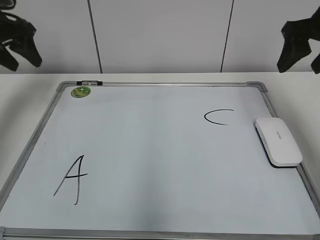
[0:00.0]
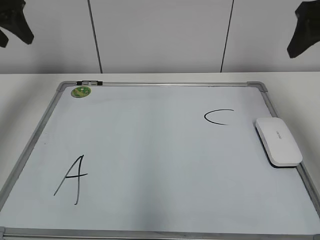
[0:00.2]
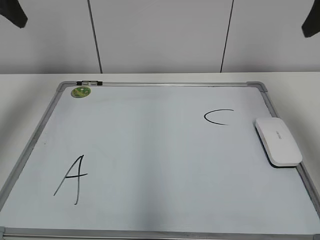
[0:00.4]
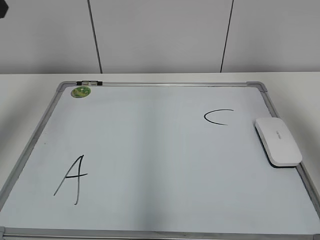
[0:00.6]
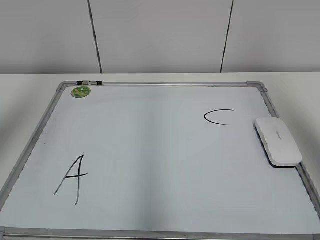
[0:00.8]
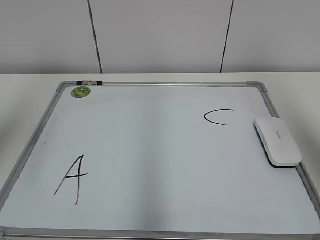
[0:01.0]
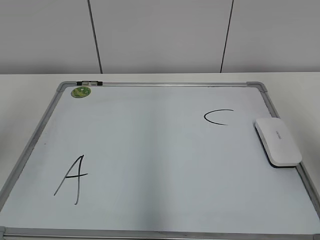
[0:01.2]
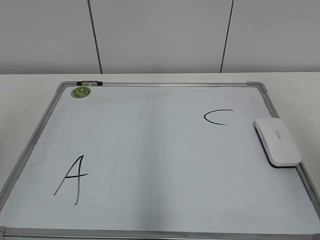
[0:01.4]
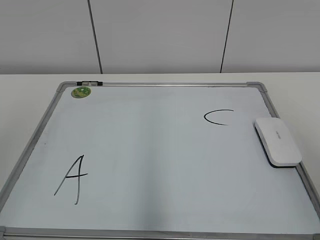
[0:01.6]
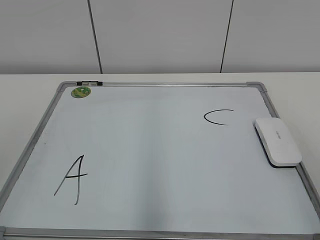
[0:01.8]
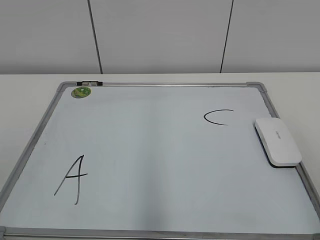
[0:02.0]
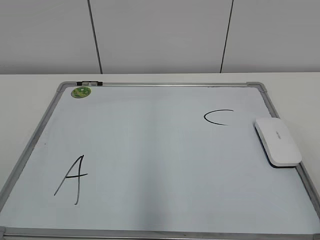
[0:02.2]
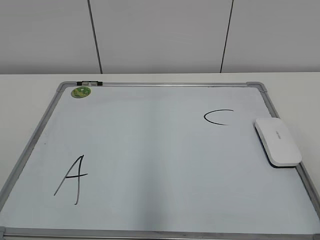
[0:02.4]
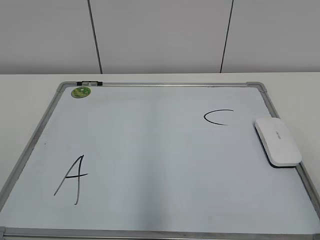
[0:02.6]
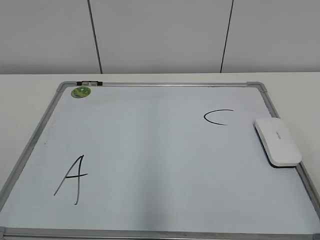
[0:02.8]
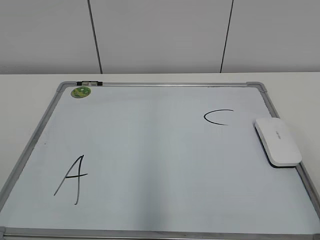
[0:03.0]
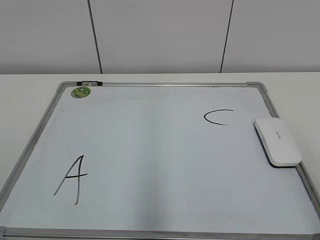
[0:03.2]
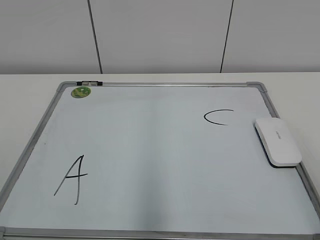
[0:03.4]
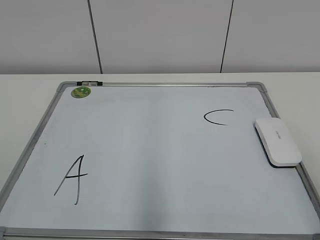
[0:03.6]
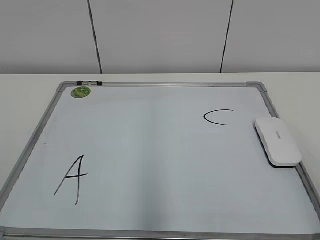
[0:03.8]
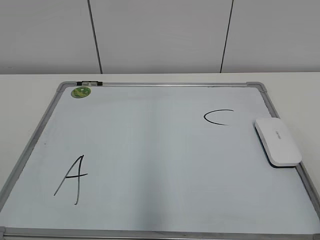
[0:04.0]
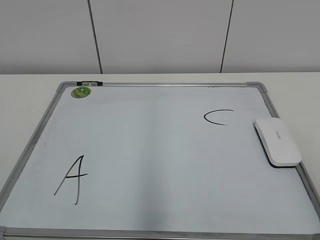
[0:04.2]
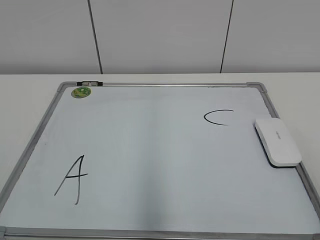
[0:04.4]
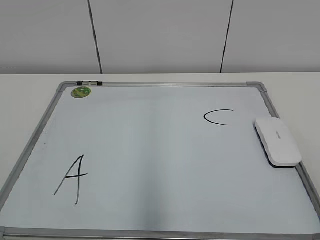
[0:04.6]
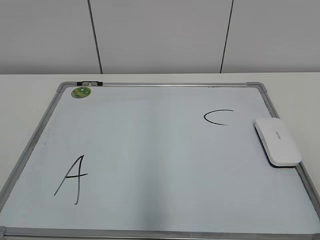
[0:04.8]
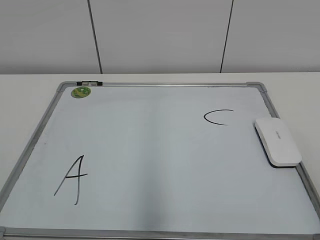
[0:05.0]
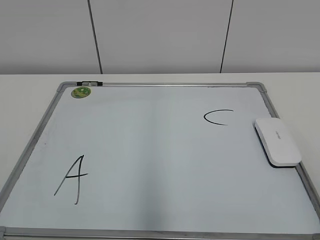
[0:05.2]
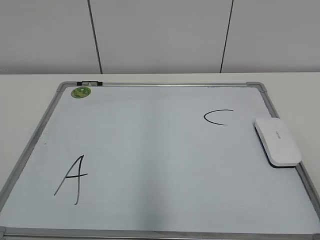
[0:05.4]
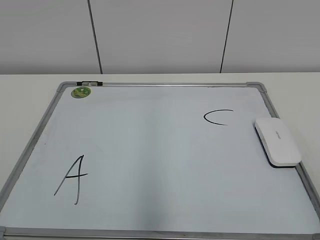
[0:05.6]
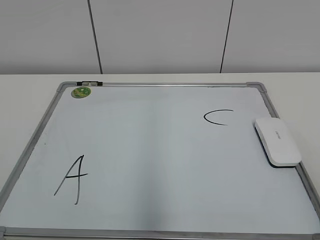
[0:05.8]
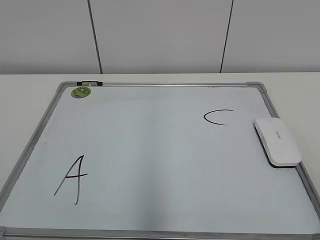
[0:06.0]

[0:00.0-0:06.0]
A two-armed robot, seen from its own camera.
Task of the whole recording: pick up the eraser on the blackboard and erase the letter "B".
0.0 to 1.6 s: Both grippers move backward, some 30 cm.
4.4 to 6.0 s: Both grippers stay about where they are.

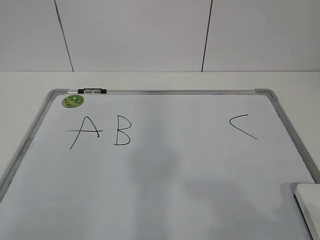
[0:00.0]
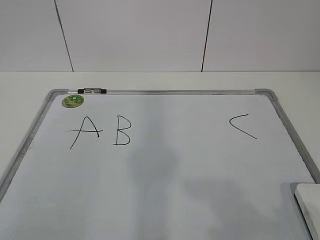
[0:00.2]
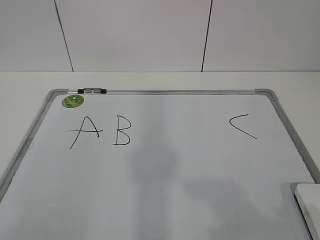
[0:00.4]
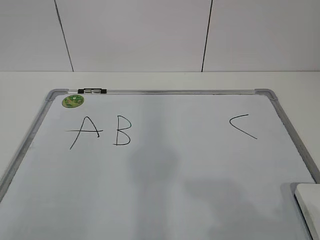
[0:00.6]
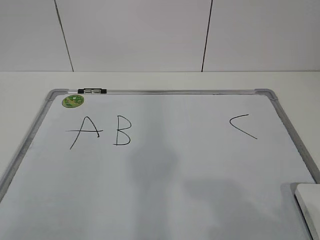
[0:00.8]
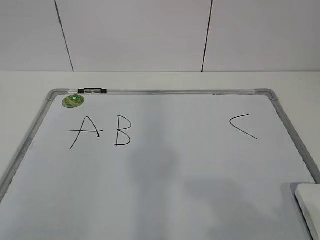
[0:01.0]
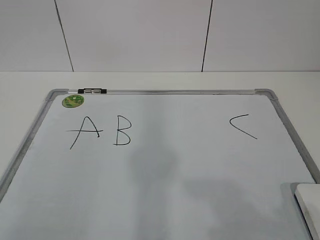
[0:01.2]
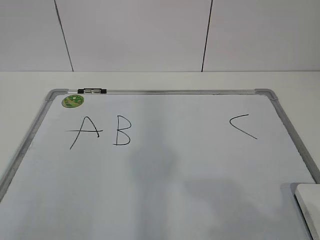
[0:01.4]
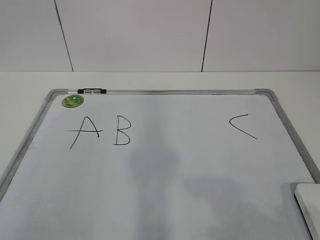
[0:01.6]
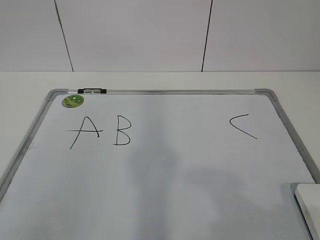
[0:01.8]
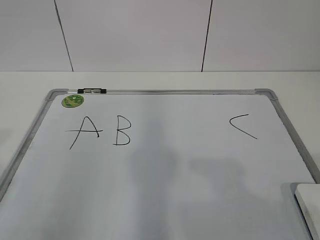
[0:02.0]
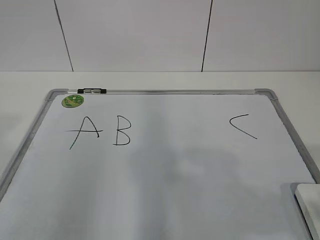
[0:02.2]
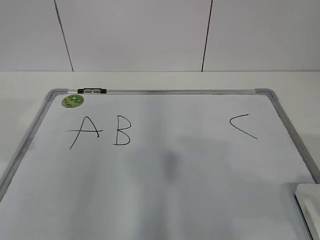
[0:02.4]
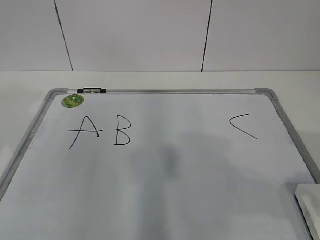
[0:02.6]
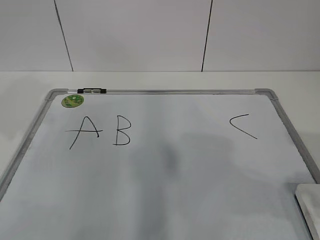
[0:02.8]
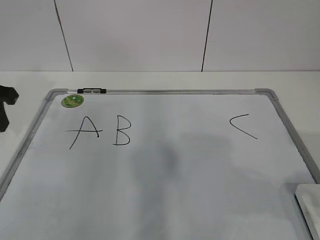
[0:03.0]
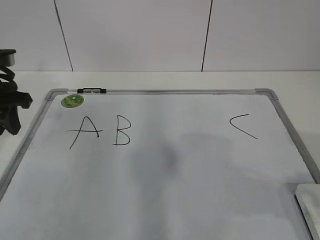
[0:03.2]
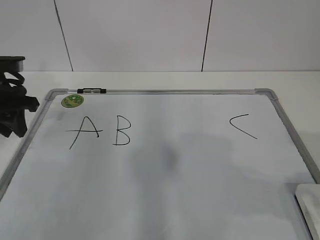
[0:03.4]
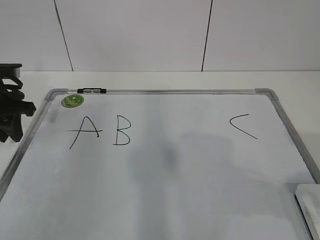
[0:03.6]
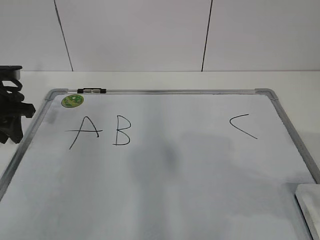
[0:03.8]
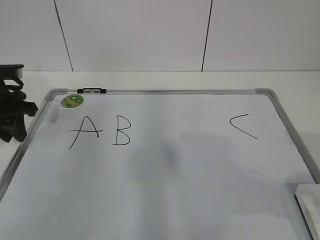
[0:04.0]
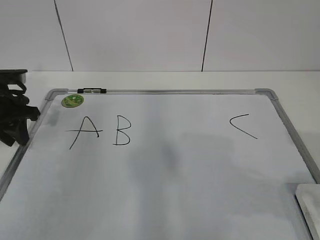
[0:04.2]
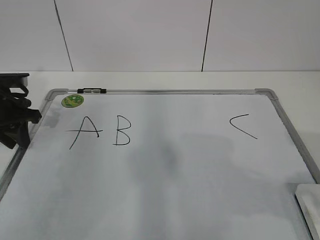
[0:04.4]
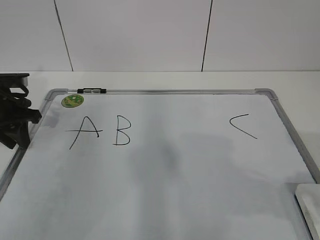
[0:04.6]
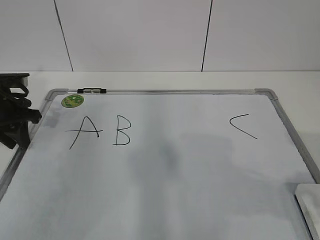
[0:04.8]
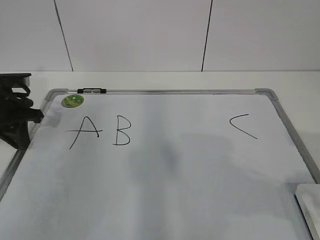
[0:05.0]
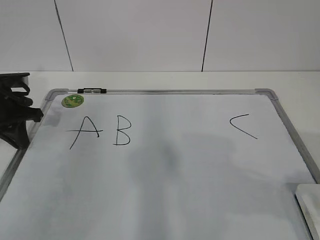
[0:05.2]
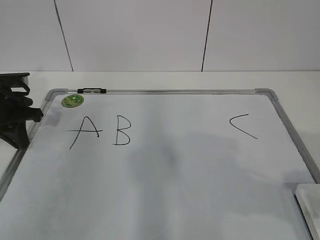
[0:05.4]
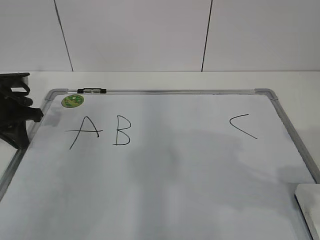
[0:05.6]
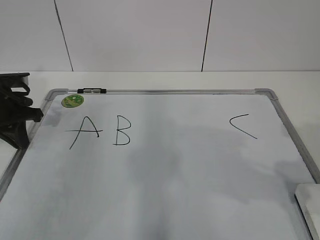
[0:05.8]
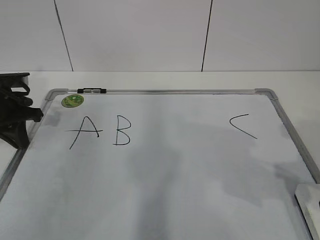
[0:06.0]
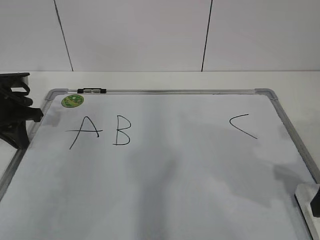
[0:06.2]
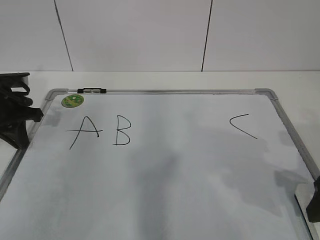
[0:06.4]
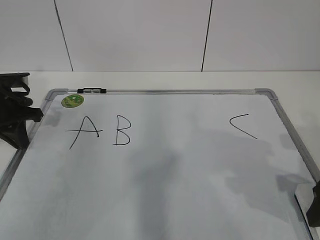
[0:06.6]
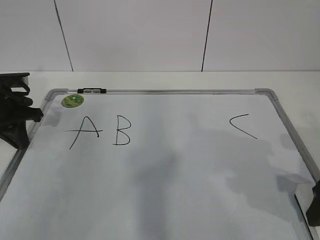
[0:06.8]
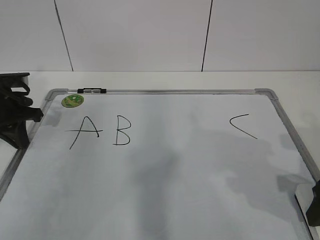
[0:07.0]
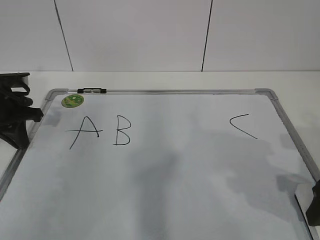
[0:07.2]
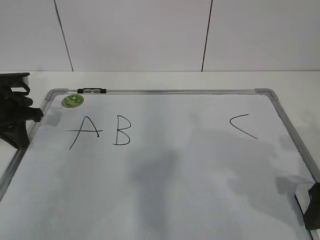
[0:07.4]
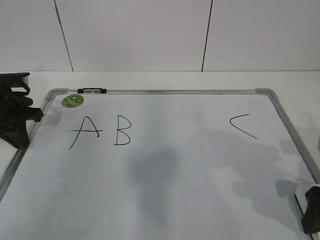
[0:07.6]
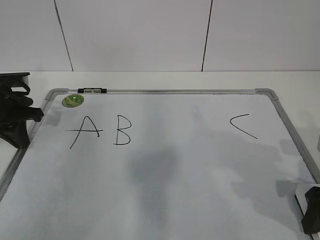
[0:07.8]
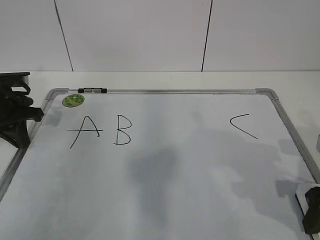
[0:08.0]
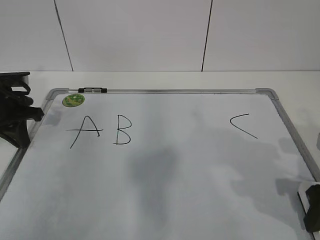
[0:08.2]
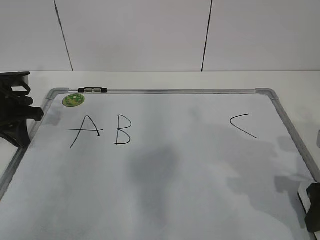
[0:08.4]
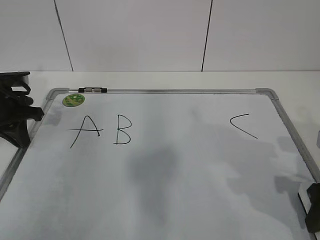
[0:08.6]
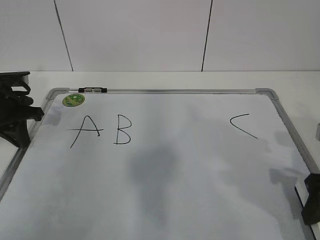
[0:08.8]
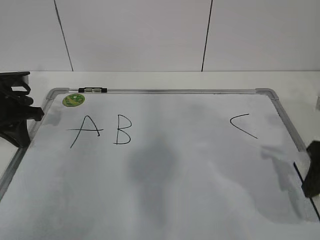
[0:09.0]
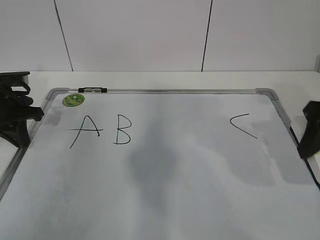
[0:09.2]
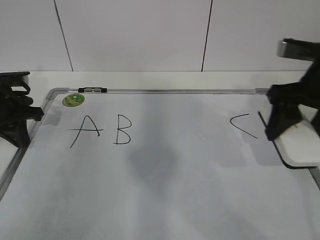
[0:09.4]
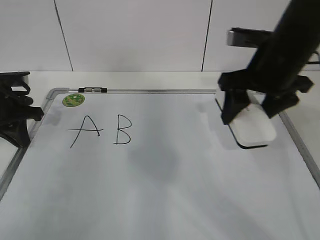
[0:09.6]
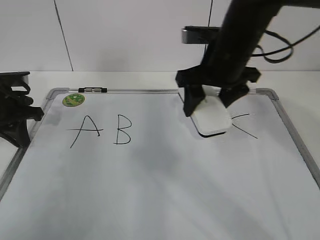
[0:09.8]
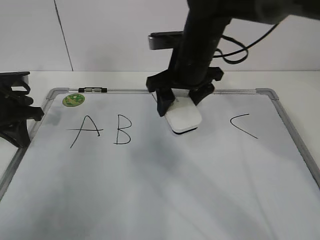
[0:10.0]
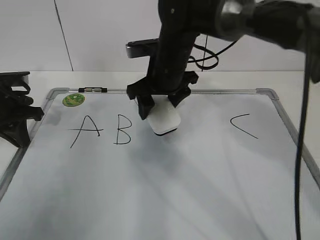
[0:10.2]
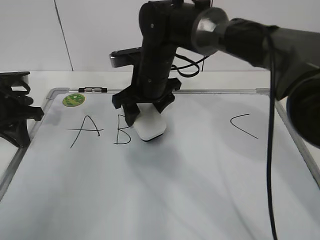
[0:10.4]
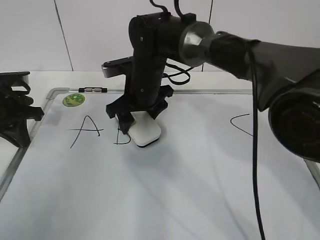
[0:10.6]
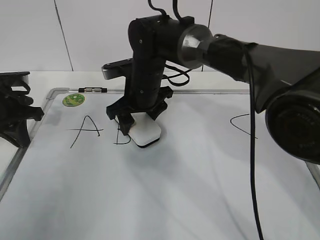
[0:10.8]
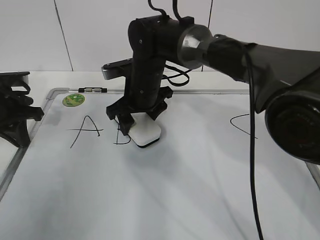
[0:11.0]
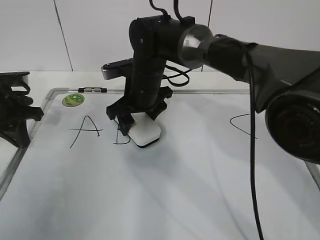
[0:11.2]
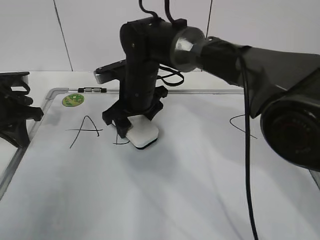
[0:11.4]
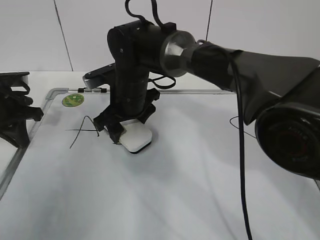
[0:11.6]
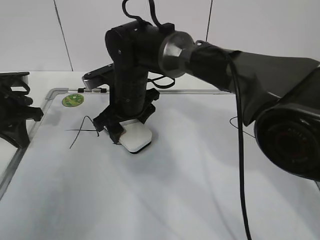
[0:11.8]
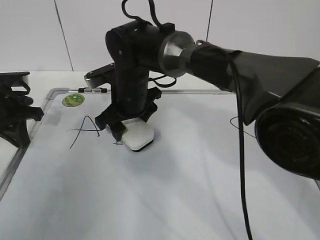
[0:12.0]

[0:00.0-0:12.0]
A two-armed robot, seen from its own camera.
Task of the whole recording: pick up the eraser on the blackboard and erase the letter "B".
Step, 0.0 to 4.0 s: Hold the drawing board steady with your left hand.
1.6 to 3.0 s: The left gripper heads forward, covering about 30 cm. The right gripper shifts approximately 10 cm forward.
3.0 to 4.4 s: The left gripper goes about 10 cm downward and forward.
6.0 to 7.6 s: The right gripper goes some 5 cm downward.
7.6 to 9.0 s: The right gripper travels upward by roughly 5 cm, and closes up.
9.0 to 10.4 s: The right gripper travels to the left and forward by some 35 cm.

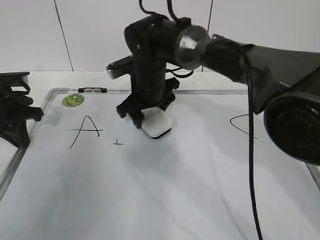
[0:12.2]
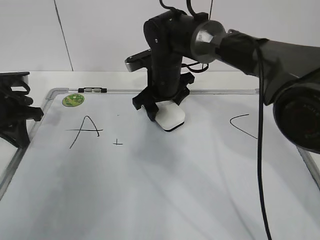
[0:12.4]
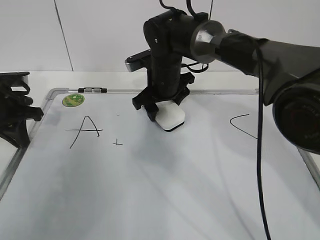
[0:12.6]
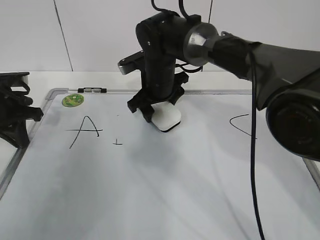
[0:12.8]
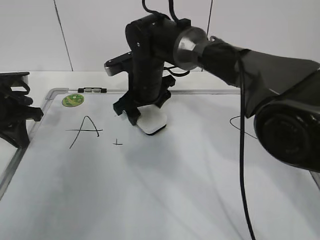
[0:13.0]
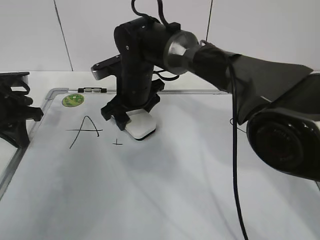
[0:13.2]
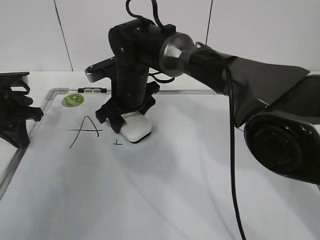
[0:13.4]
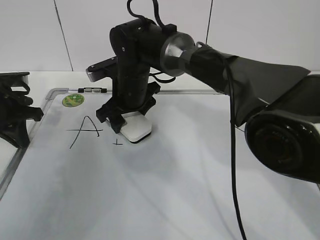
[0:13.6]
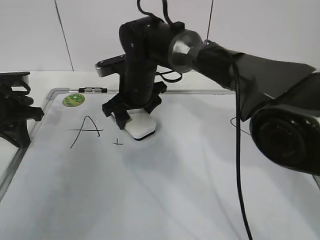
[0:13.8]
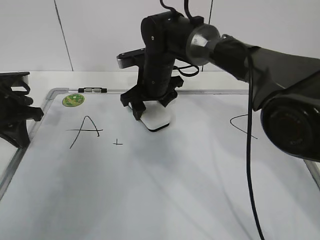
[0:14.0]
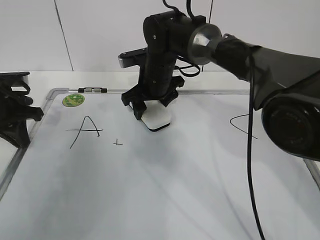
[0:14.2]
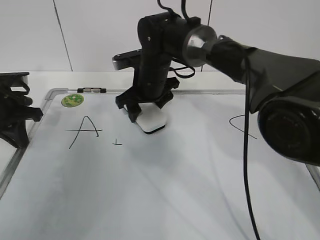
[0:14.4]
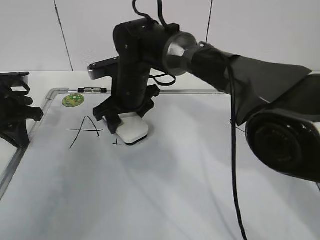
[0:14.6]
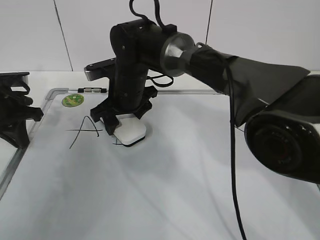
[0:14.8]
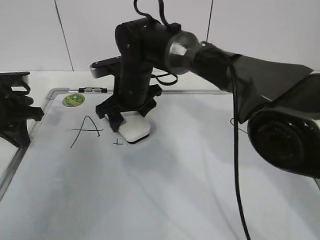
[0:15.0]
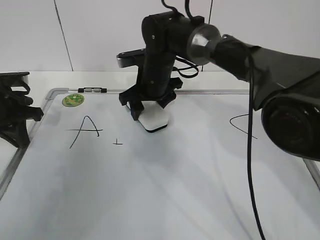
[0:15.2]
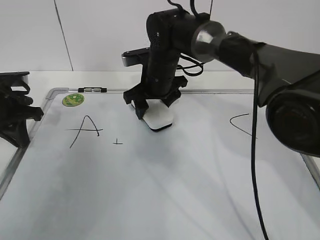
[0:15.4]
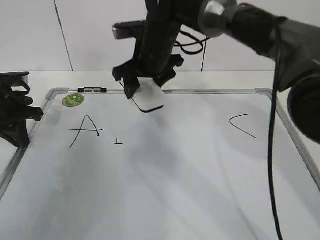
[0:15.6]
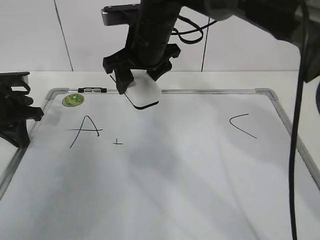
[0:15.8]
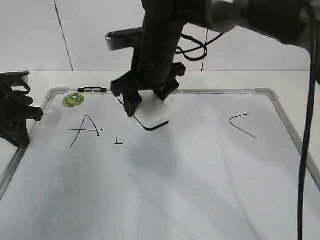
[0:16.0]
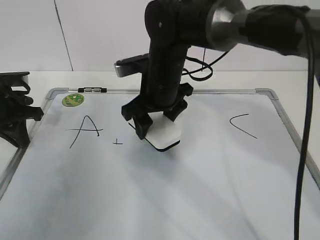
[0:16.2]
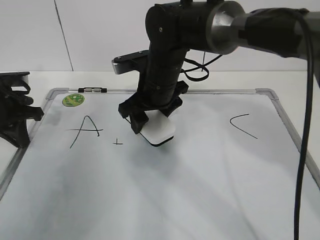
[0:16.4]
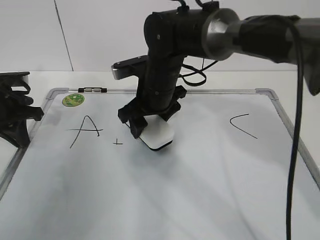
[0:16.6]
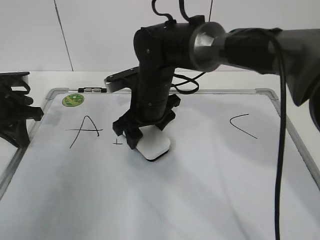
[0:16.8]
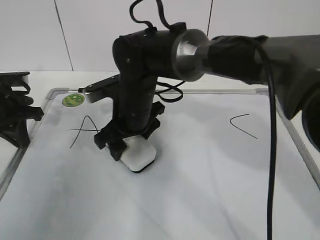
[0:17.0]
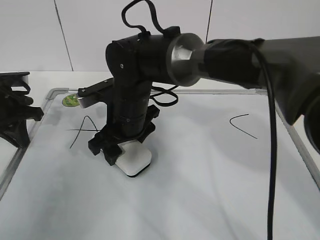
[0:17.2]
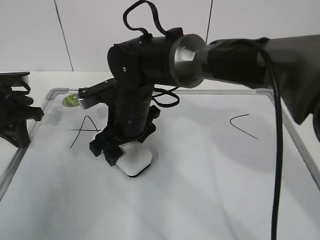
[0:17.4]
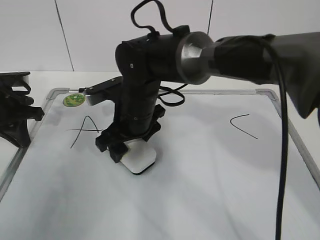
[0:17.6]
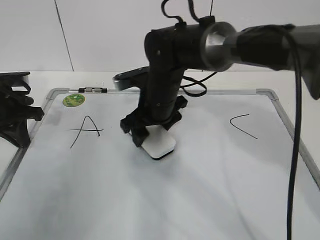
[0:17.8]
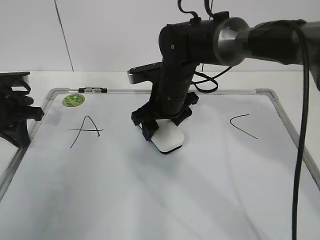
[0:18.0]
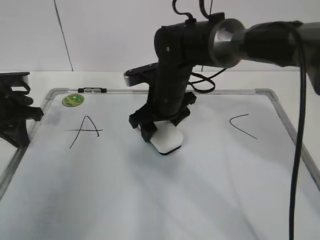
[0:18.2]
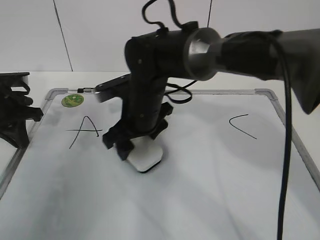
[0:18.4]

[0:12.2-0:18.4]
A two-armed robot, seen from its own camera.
Task of the whole recording: pick up the eraser on the blackboard and erase the letter "B".
Step, 12.2 to 16.2 s: Erase the letter B with your right hand.
12.2 to 15.4 s: The grippers move only a little.
15.4 to 16.8 s: The right gripper travels backward by some 5 cm, and reaches roughly 10 cm upward, then returns.
16.8 to 18.4 s: The right gripper moves left and right over about 10 cm, changing direction 2 times.
